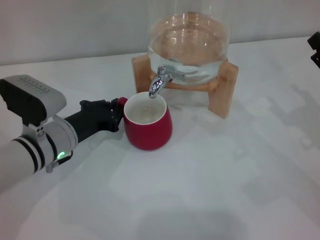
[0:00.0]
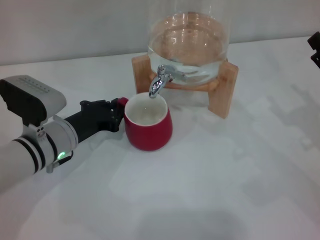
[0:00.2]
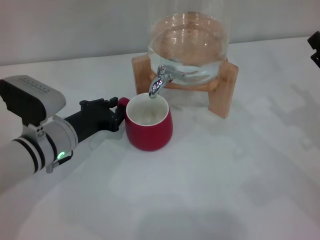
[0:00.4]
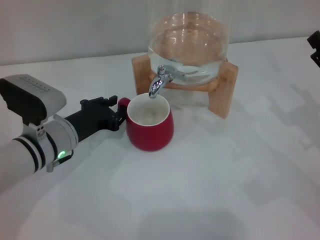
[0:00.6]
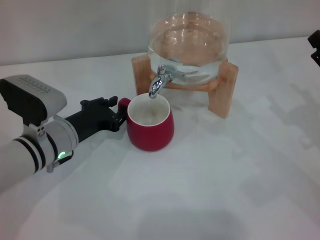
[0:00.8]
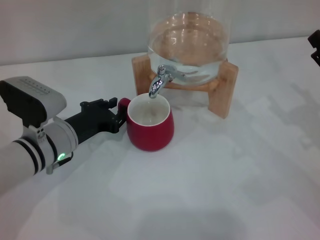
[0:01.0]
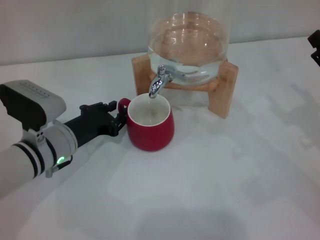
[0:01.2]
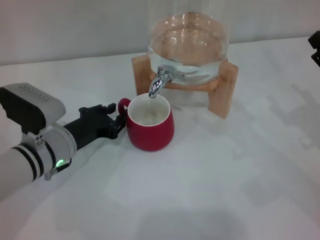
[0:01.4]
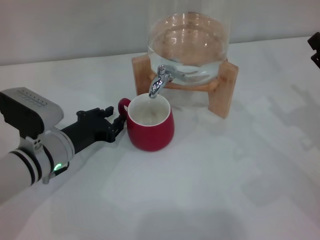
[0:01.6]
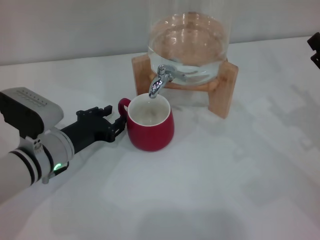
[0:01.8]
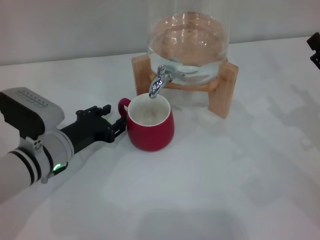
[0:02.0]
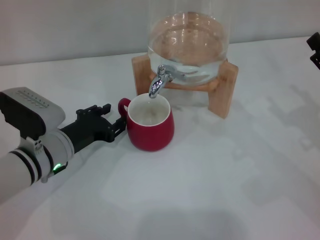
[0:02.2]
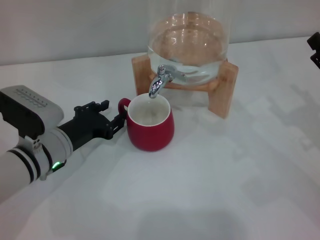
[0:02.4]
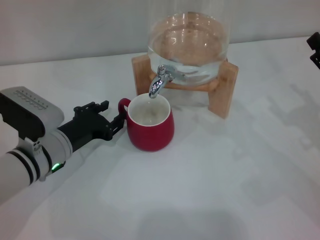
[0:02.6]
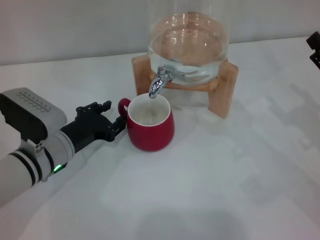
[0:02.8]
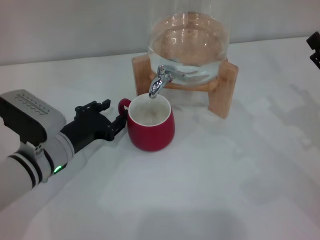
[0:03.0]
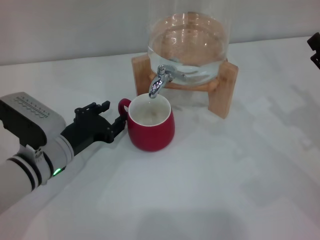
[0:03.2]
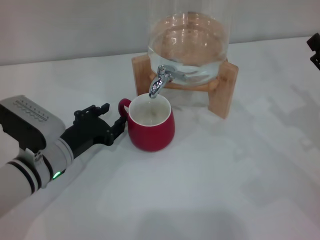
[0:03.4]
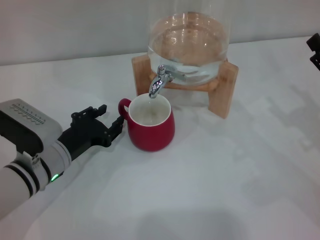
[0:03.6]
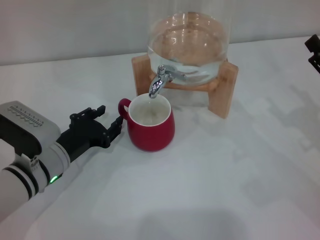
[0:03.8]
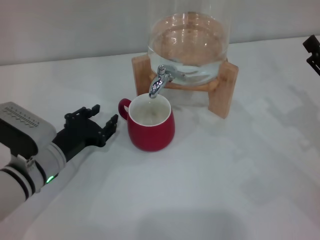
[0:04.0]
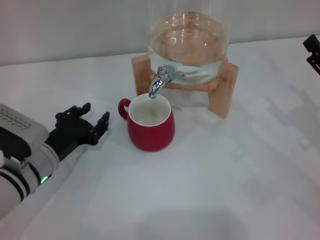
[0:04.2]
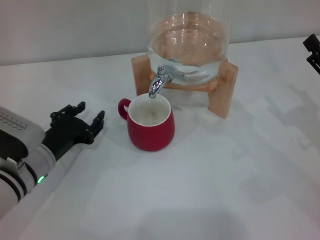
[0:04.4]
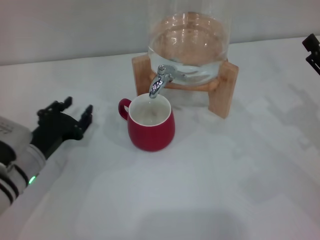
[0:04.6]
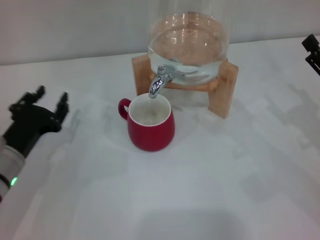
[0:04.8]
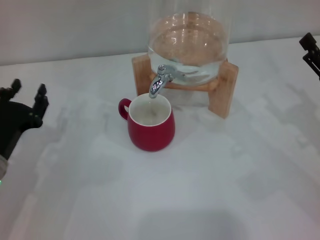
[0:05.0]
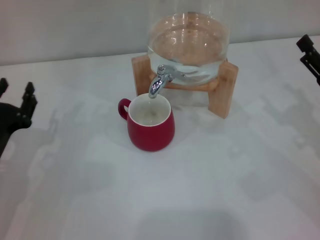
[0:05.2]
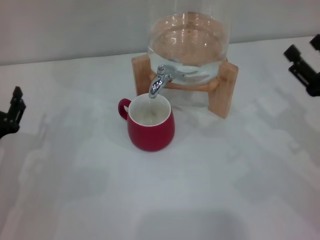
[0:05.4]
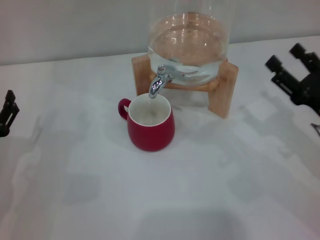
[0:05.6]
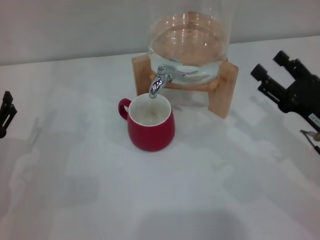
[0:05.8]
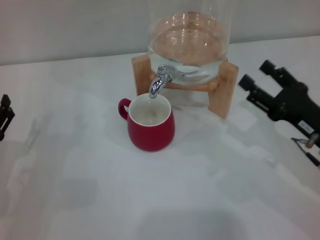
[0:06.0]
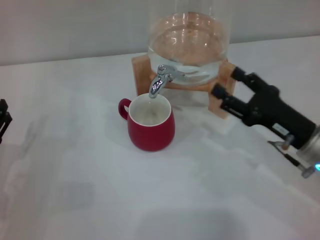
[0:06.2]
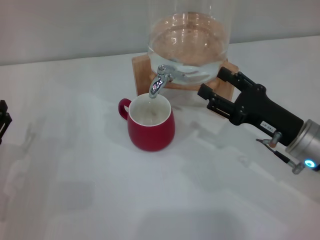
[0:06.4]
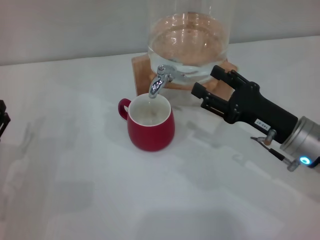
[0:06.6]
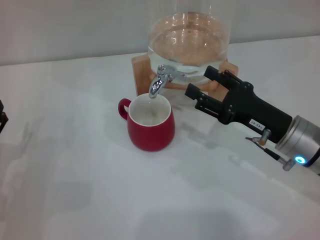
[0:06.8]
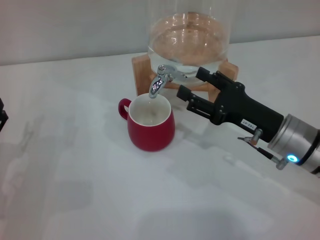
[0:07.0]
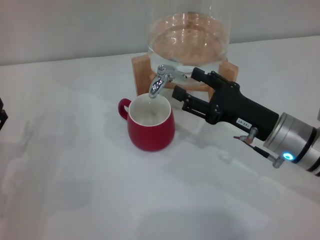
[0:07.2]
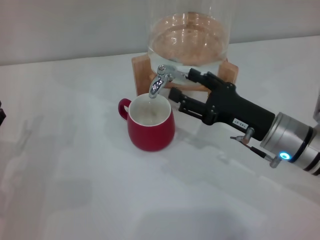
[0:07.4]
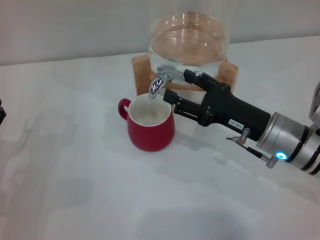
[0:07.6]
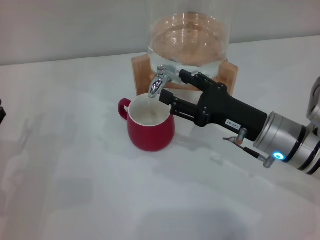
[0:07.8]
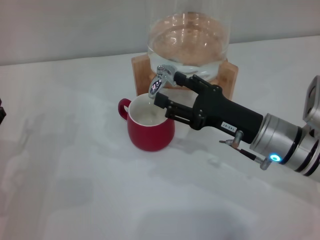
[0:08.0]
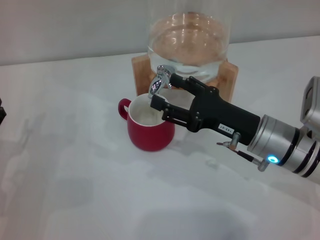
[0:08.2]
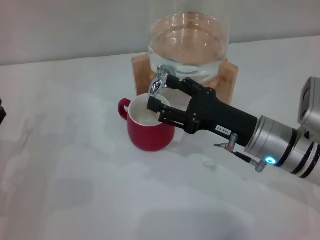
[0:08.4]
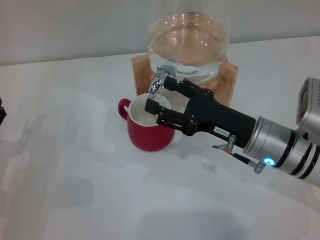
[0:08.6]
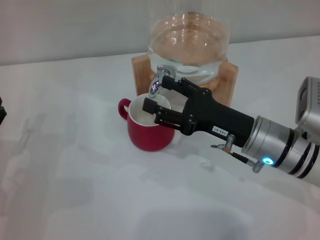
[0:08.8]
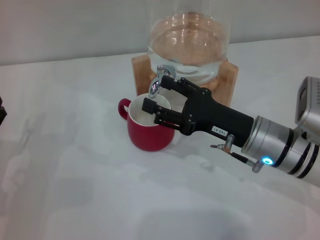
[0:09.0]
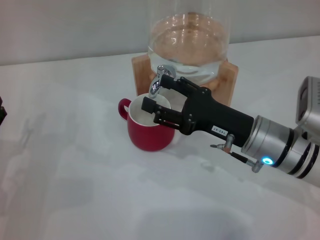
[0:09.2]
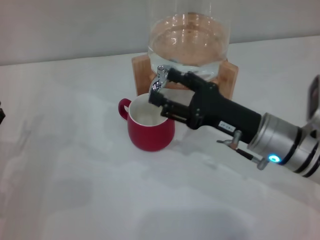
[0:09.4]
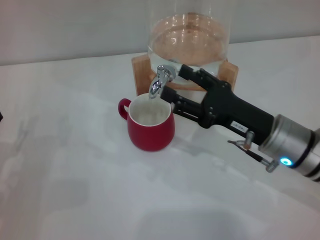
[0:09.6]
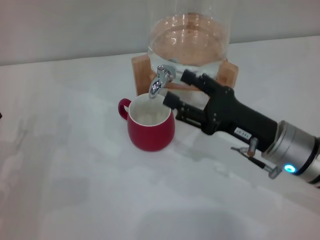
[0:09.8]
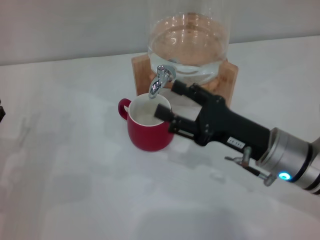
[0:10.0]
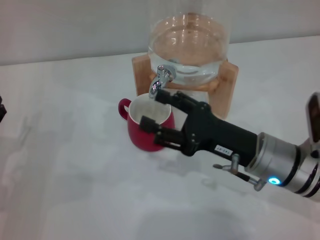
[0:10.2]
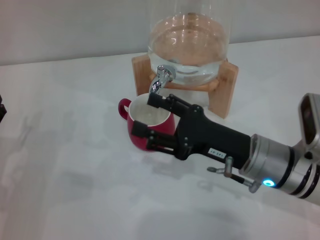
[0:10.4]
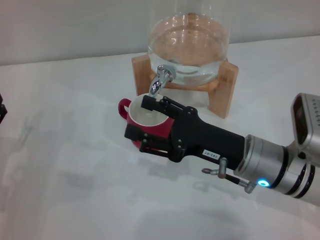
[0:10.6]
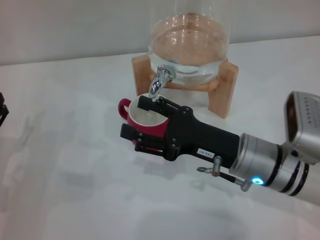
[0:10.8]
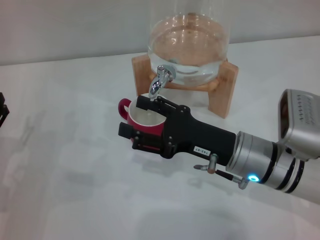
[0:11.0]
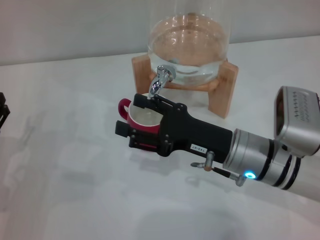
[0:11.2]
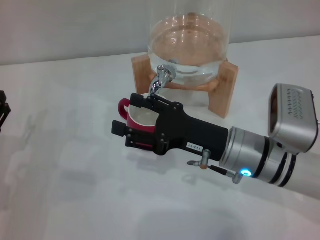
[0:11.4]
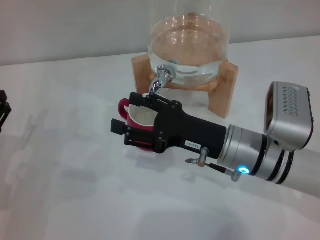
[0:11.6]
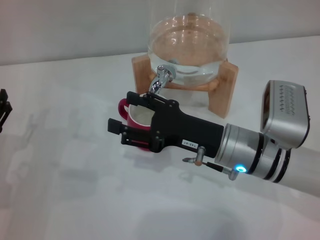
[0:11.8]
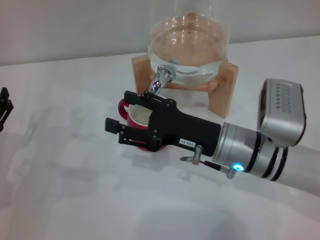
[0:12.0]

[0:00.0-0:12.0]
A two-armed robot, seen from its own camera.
Task of the whole recording: the left gripper pick up the red cup and place it horizontally under the faucet, the right gripper turn on the faucet to fill the cup, and then turn off the faucet.
Step, 0:00.0 to 0:04.0: Move the cup beneath the water dispenser nozzle with the left gripper.
0:00.0 to 0:04.4: There are only small adjustments of the grippers.
0:04.4 to 0:06.0: The right gripper travels to the left by approximately 5 cm, while the left gripper goes some 10 cm to the left and backward, and opens its fingers.
0:06.0 to 0:07.6: The right gripper is displaced to the left by about 10 cm.
0:07.6 to 0:10.4: The grippers stay close to where they were, moving slightly.
0:10.4 to 0:12.0: The grippers move only a little.

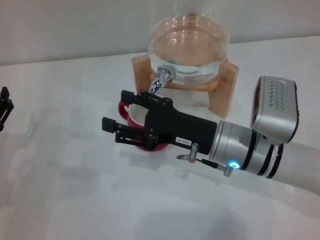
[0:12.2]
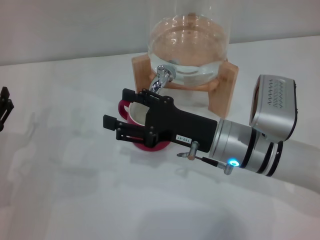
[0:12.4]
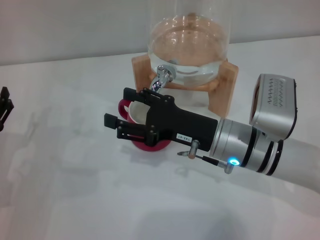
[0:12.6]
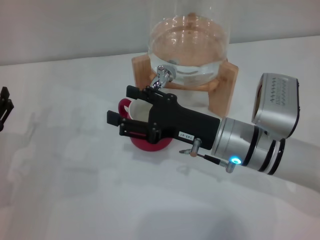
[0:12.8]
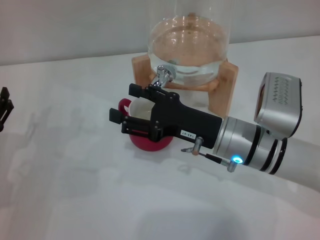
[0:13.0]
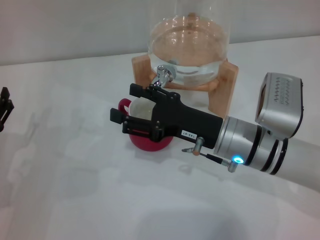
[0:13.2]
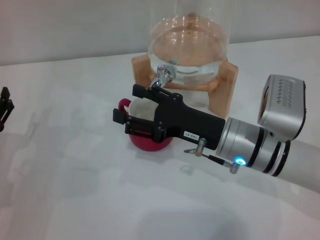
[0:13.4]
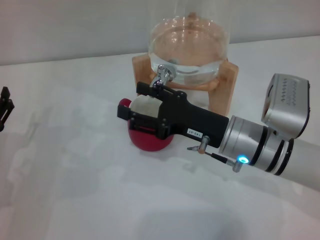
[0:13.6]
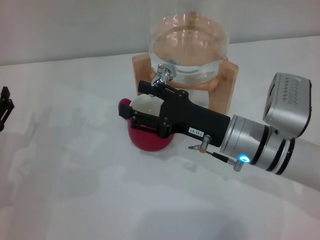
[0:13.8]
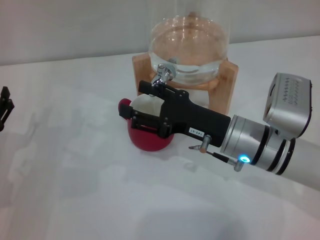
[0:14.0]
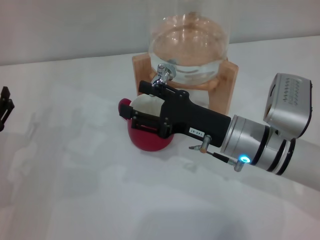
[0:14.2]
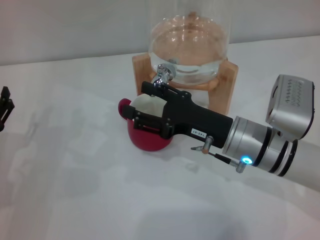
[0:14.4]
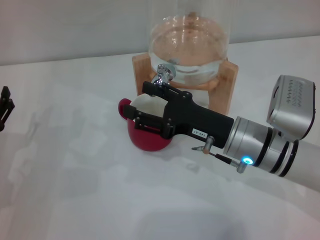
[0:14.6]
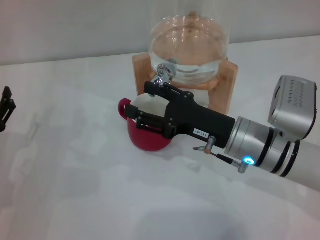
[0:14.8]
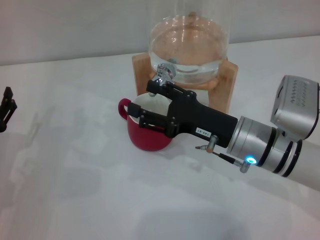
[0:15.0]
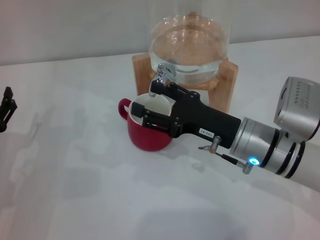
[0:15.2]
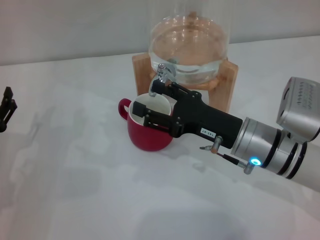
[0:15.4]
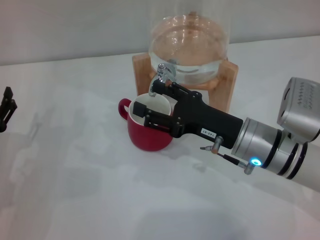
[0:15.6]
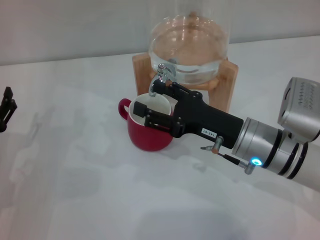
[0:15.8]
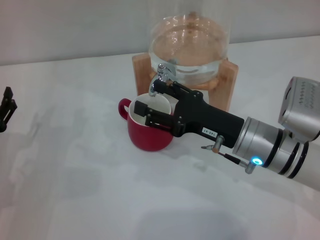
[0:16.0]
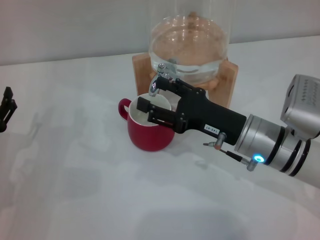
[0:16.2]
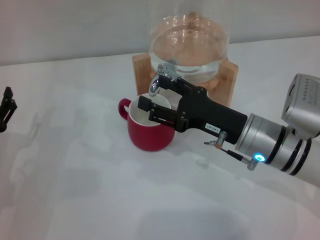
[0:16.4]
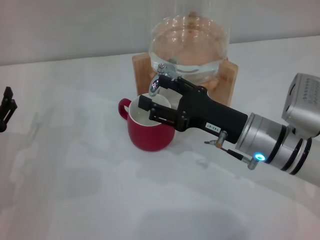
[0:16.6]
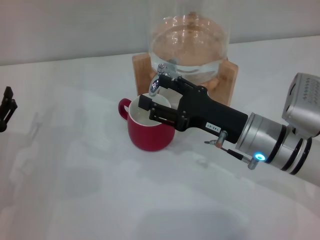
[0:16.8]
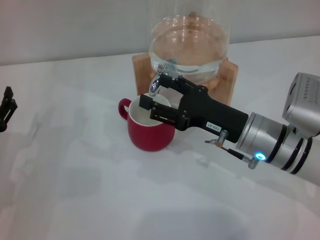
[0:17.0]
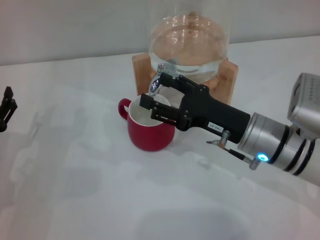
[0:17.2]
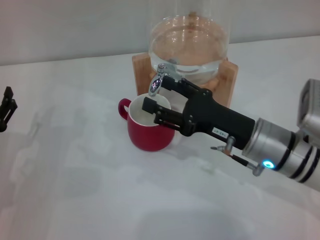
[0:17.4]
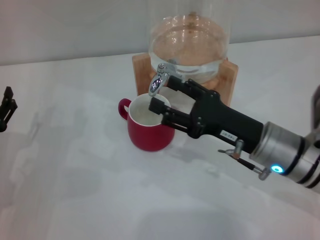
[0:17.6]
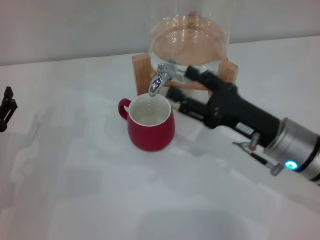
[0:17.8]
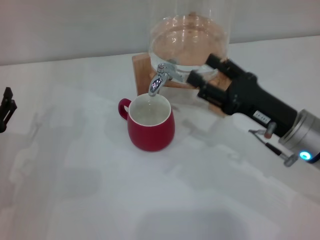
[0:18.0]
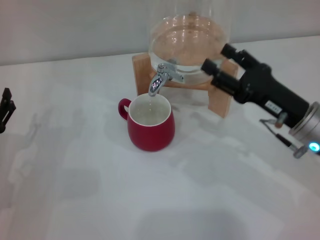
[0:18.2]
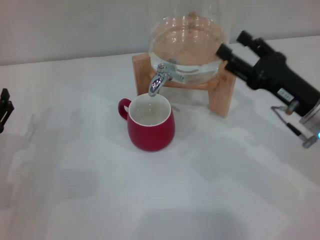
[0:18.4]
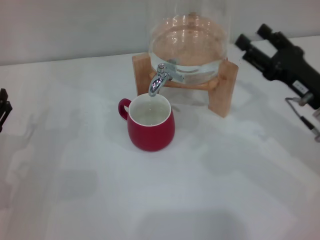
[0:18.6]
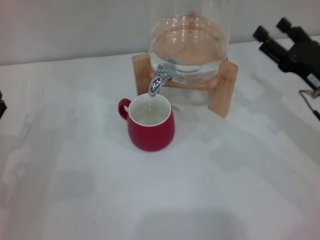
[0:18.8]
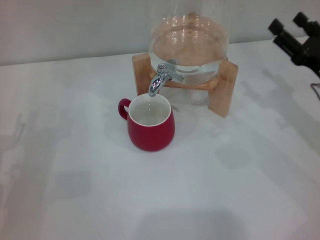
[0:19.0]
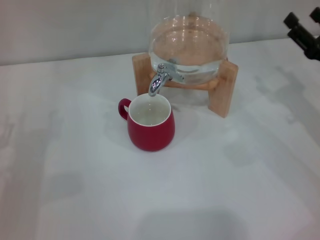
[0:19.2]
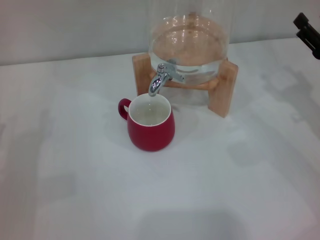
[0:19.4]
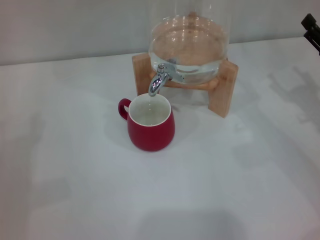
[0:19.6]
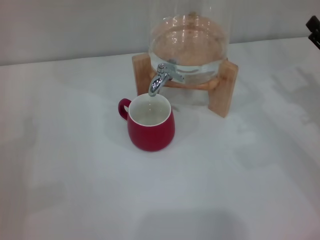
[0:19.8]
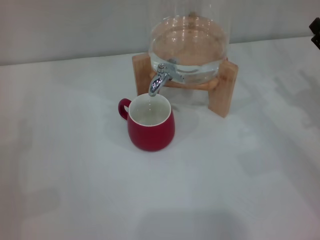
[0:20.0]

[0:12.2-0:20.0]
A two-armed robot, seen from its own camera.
Task of the whole recording: the left gripper pick up the red cup and place it horizontally under the faucet, the right gripper turn on the faucet to fill the cup, and then turn off the faucet.
Step, 0:12.6 to 0:17.8: Close the dispenser valve with the right gripper.
0:12.2 to 0:15.4: There are only small adjustments of the grippers.
0:15.4 to 0:16.8: Both grippers stay put.
0:16.8 to 0:18.4: The right gripper moves to the right, roughly 10 cm.
0:18.4 to 0:20.0: The right gripper shifts some 10 cm to the right.
